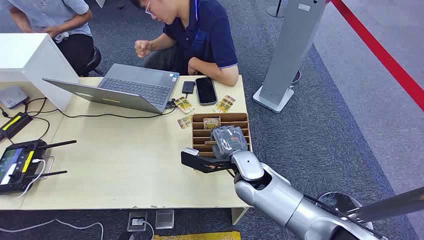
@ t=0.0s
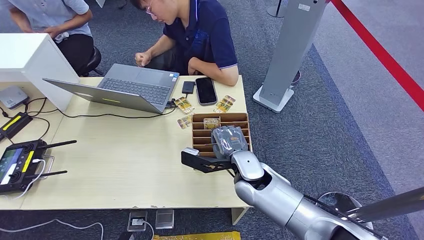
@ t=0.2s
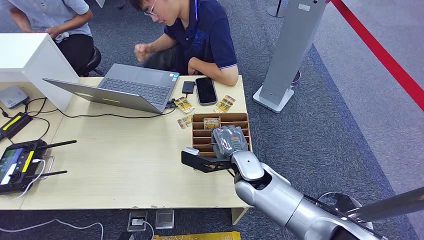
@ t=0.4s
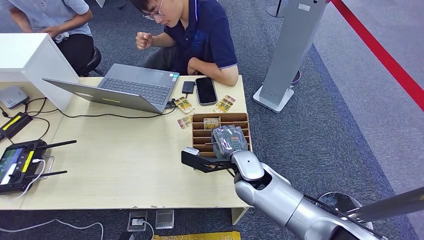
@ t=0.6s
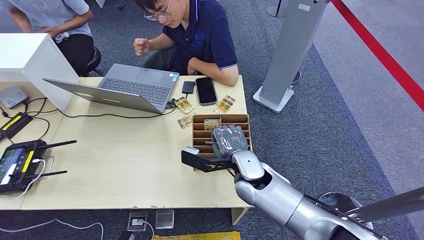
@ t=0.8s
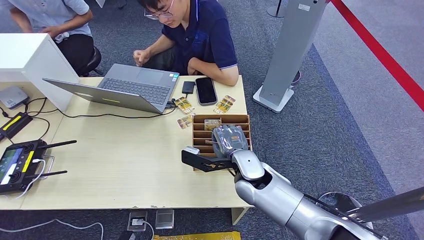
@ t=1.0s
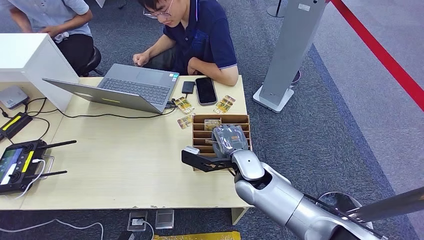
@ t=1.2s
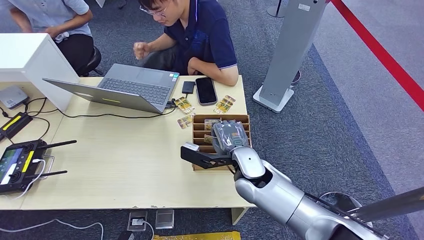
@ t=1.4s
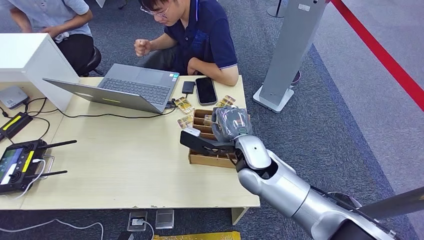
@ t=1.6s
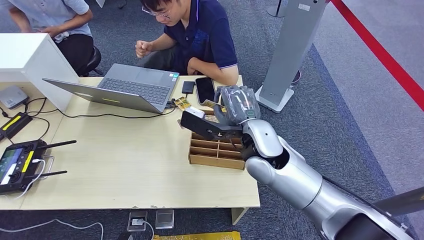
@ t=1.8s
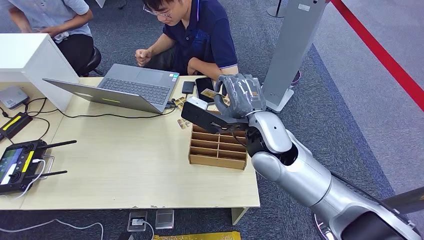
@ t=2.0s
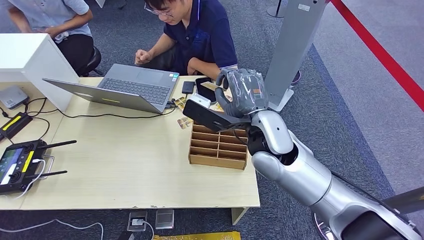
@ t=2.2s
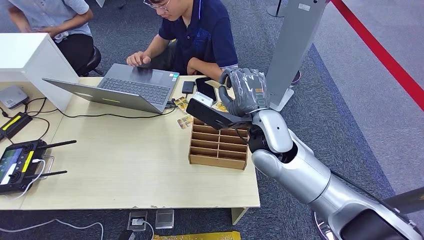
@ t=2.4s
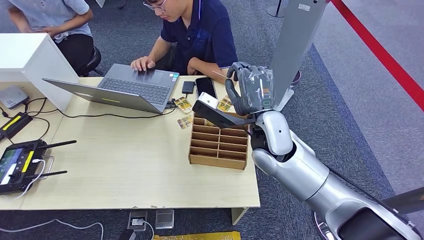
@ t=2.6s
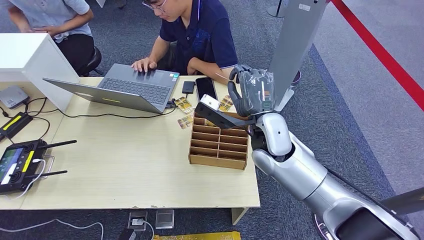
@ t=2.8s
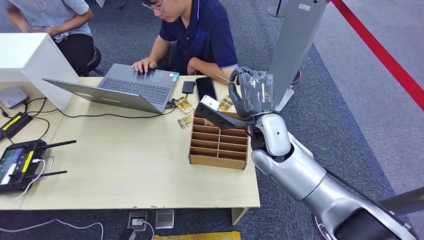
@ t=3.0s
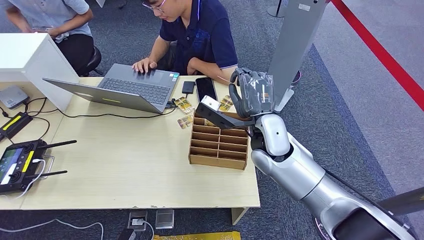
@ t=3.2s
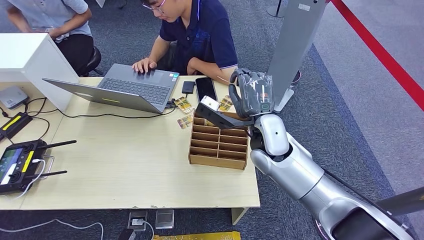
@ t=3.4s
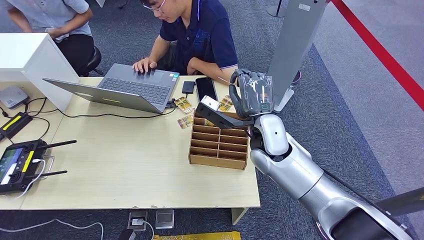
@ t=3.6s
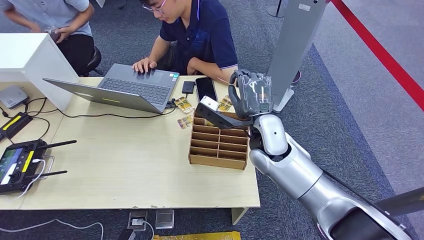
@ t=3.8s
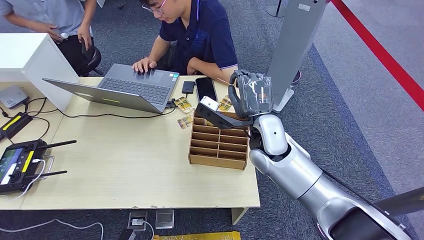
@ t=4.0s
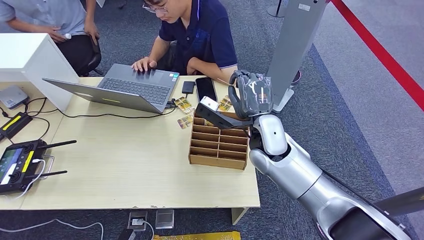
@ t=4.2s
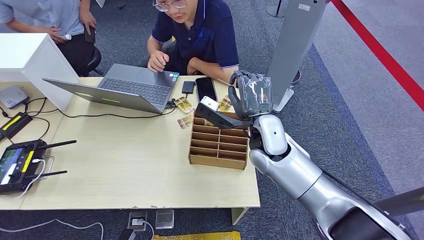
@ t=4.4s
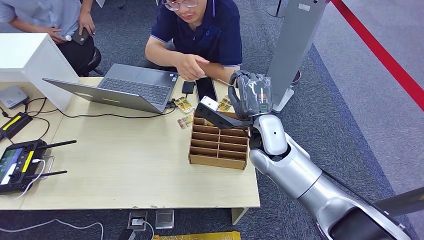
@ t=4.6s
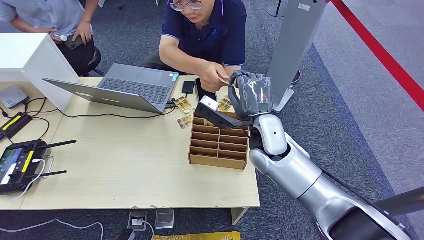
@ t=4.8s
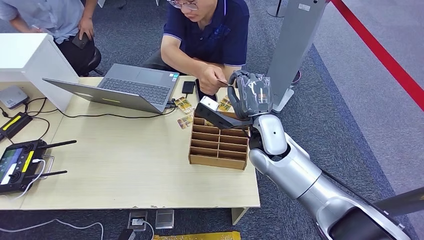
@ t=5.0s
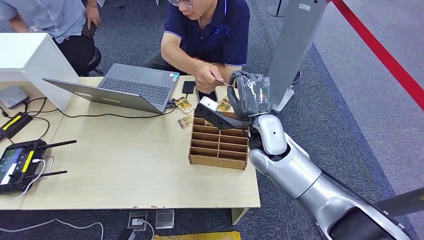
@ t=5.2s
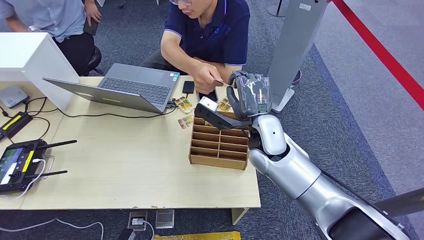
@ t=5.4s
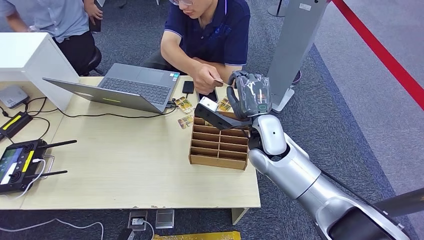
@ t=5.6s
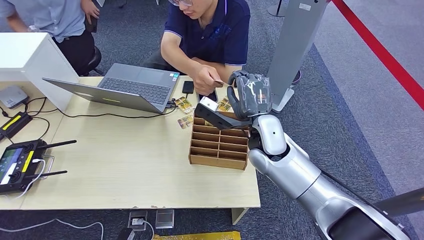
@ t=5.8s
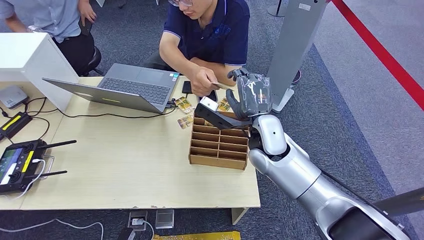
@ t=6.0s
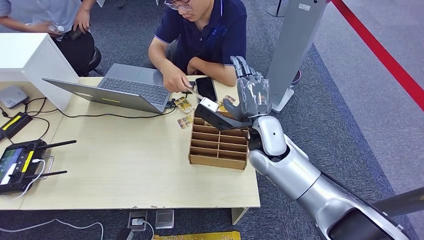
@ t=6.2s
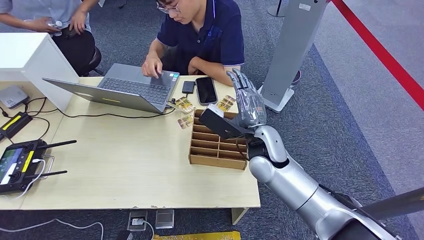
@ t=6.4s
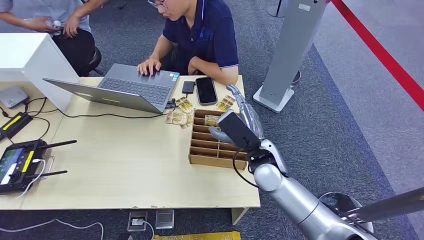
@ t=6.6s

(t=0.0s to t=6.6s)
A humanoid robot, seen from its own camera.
Step, t=0.0s - t=1.6s: Pick up the room card from the card holder.
Step, t=2.2s - t=6.4s: Hand the room card to the target.
t=1.6s - t=3.2s: The right hand heads downward, covering approximately 5 cm.
t=3.2s - t=5.0s: Neither hand changes place.
t=5.0s - t=6.6s: The right hand goes some 10 cm downward and backward.
